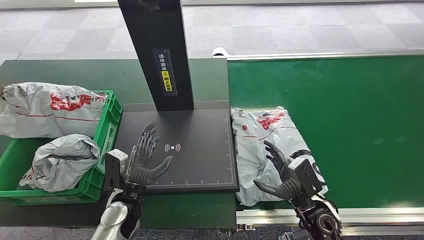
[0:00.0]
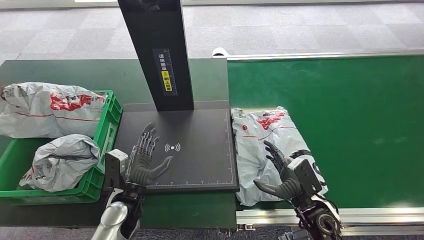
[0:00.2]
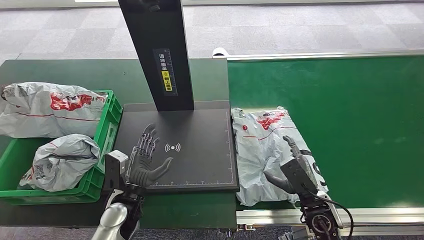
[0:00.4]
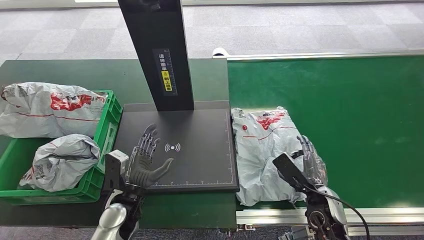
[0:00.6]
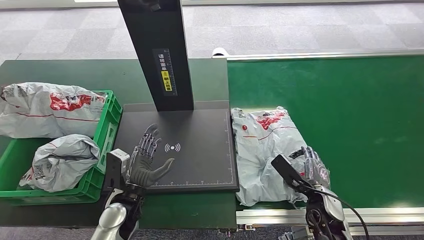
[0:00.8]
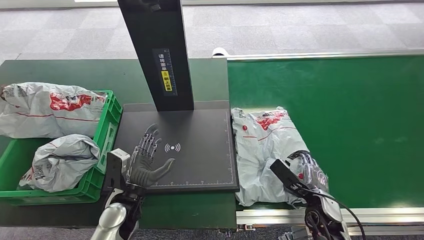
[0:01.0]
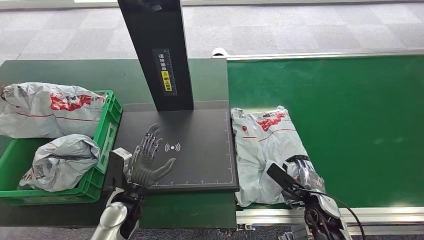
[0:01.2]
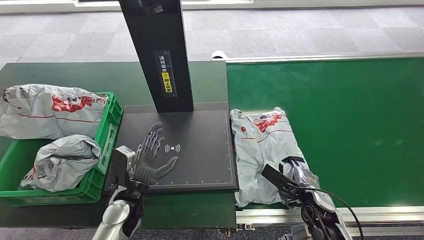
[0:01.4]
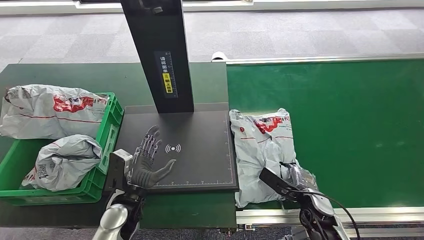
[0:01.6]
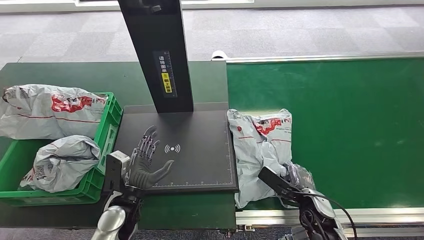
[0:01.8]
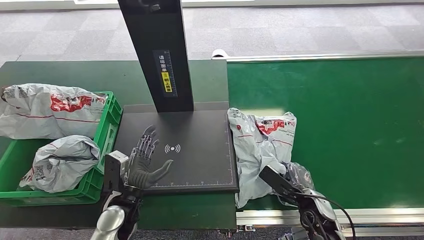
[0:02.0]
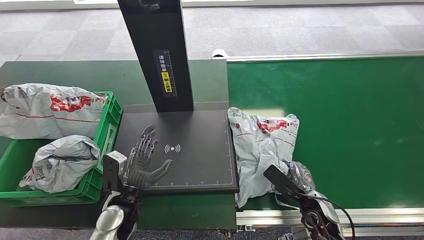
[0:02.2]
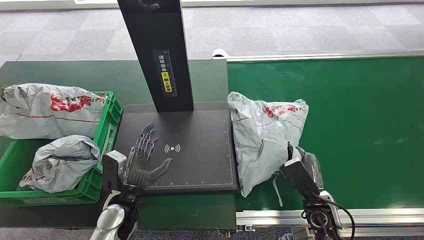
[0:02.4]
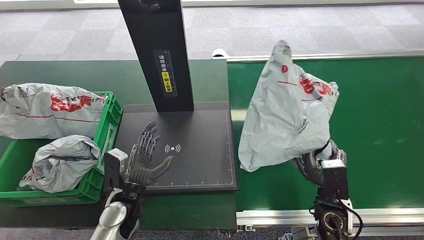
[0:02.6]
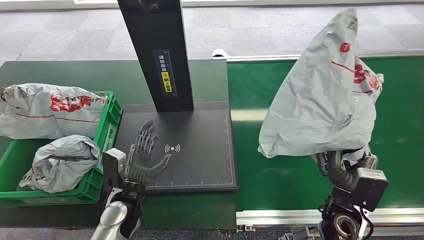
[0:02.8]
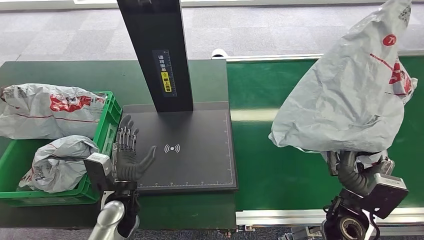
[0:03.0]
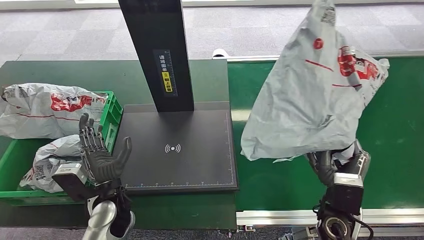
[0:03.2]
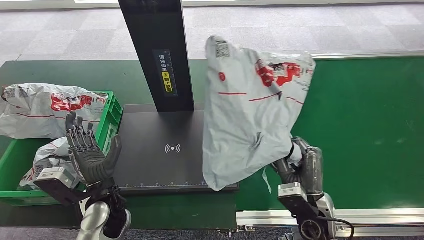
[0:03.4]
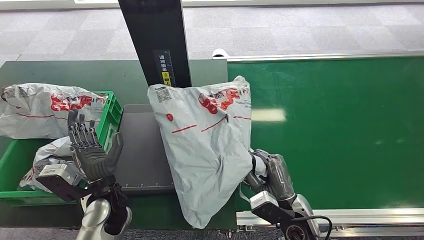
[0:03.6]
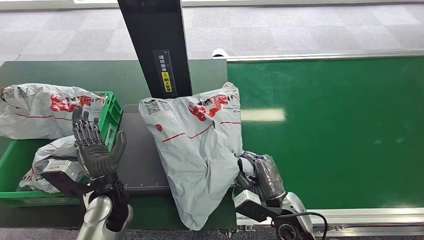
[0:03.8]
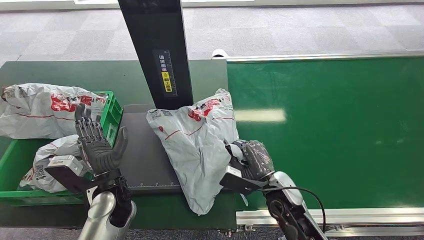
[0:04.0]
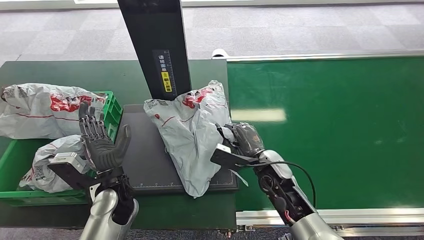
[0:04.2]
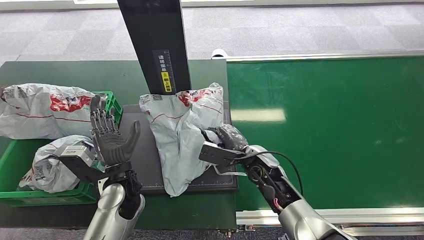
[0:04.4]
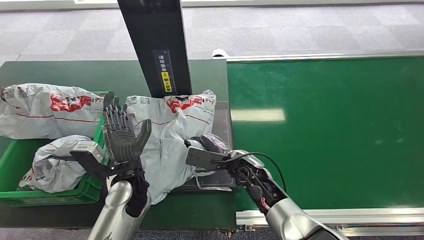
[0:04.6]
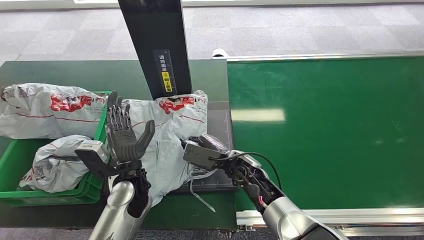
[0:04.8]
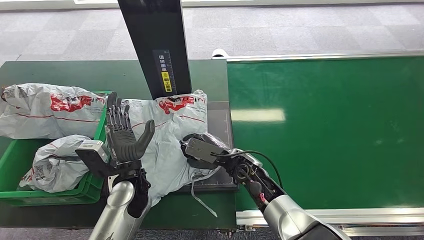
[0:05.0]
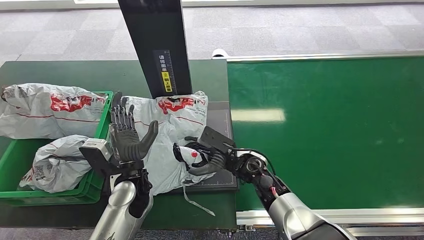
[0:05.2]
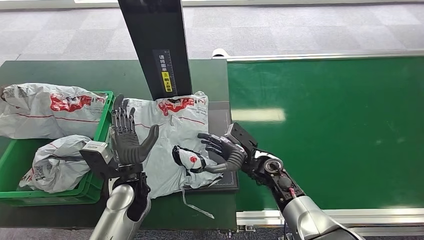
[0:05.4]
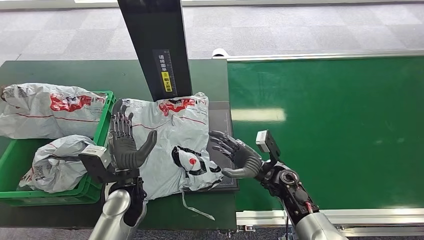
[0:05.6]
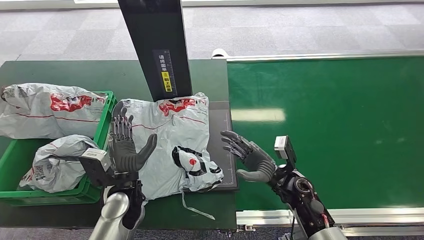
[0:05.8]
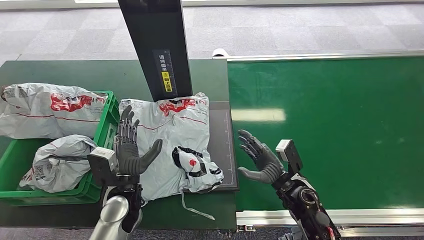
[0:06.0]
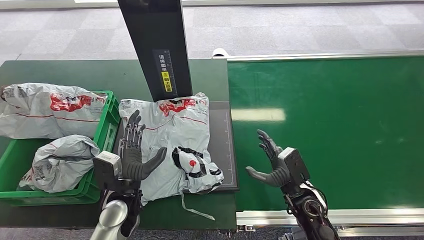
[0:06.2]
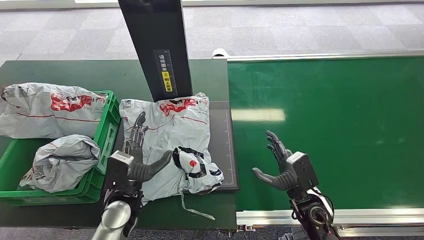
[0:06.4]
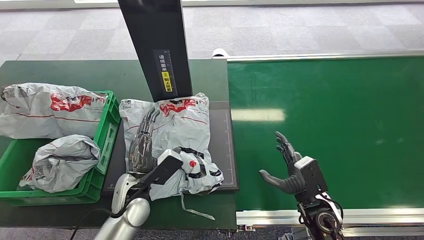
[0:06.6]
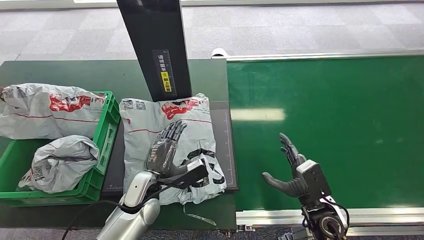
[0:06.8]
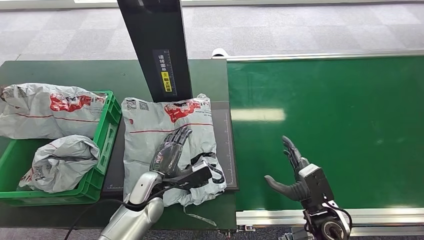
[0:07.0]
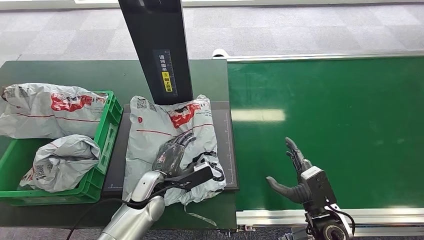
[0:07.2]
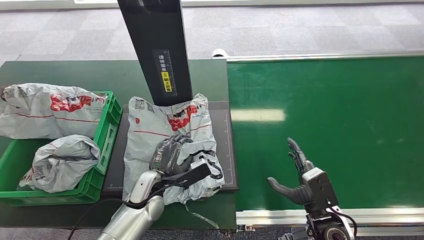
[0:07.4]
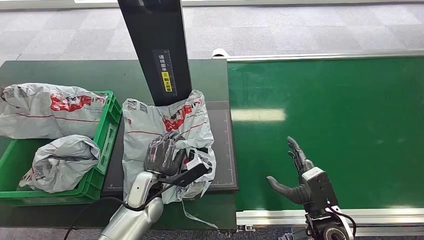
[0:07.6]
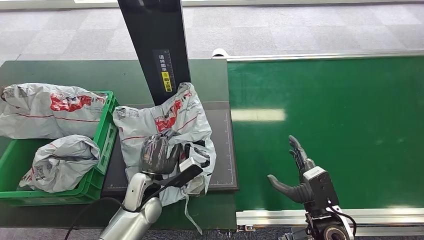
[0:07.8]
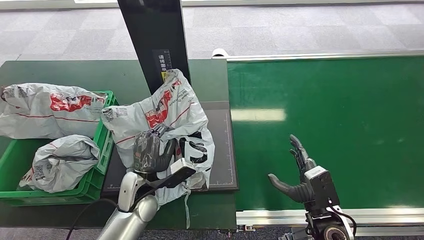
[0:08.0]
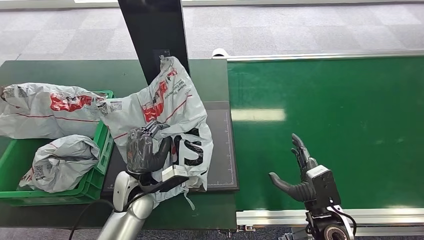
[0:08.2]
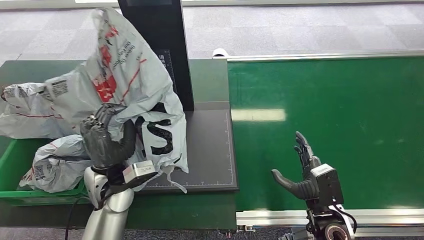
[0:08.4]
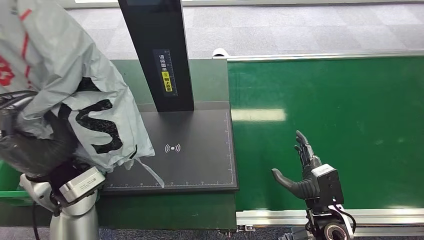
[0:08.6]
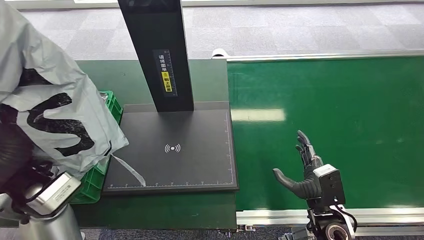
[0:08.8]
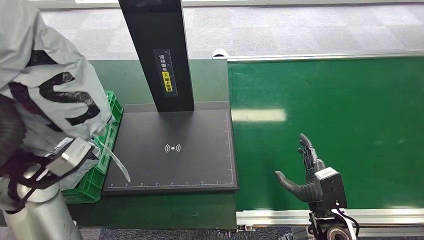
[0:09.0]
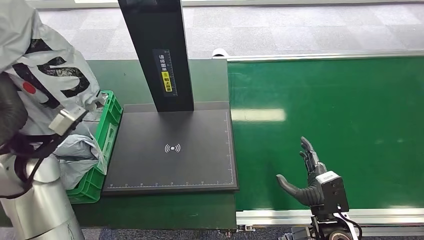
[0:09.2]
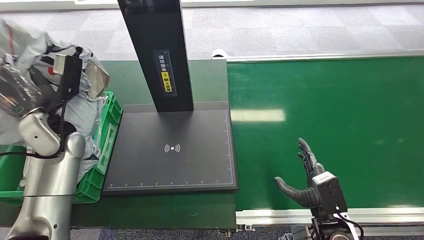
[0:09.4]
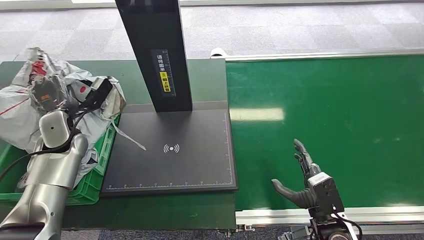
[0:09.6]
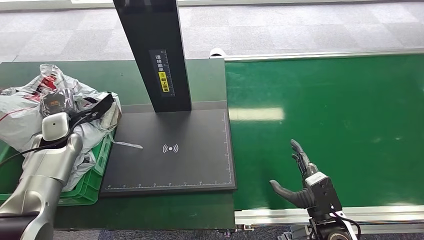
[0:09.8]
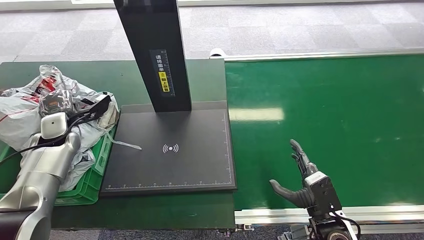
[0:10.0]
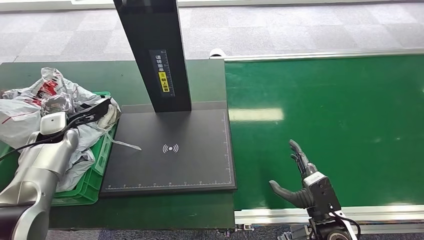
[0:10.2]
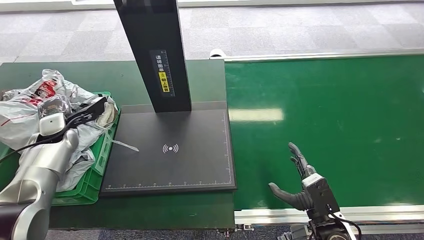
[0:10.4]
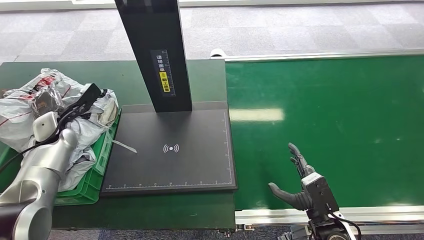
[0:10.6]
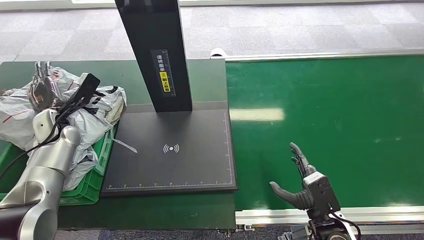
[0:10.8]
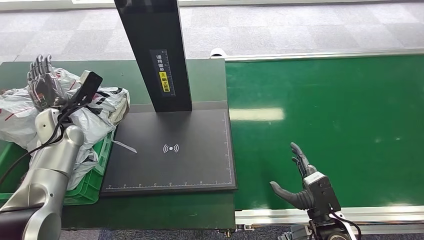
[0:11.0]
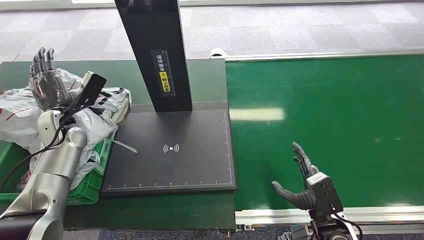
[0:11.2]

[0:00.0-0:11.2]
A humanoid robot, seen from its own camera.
Step, 0:00.0 to 0:02.8: Pick up the package from the conveyor belt.
Step, 0:03.0 to 0:05.8: Place the package onto the inbound machine.
Step, 0:06.0 to 0:08.4: Pick up the package from the inbound machine.
Step, 0:08.8 to 0:11.2: Place the package into the parcel locker.
0:04.8 to 0:06.4: The left hand moves about 5 cm; the right hand moves to the right and backward, roughly 20 cm.

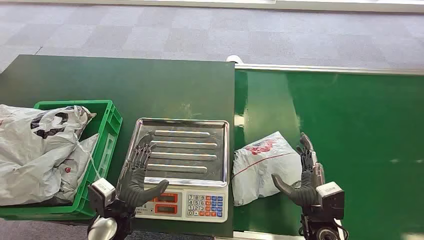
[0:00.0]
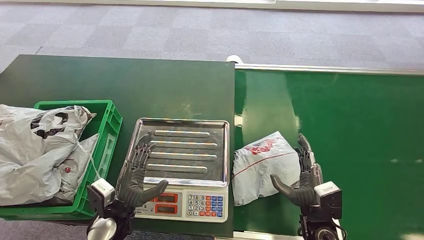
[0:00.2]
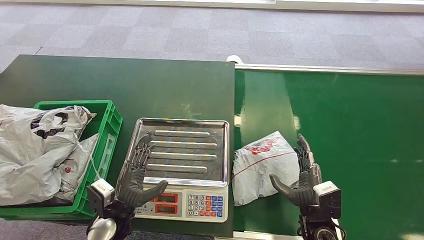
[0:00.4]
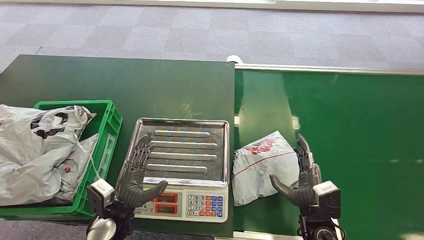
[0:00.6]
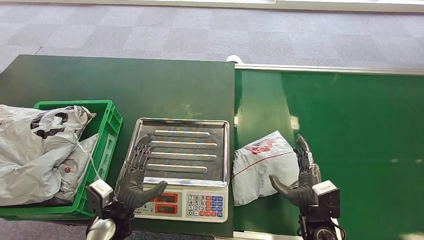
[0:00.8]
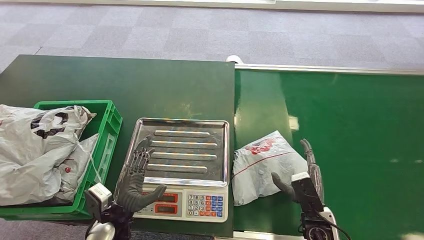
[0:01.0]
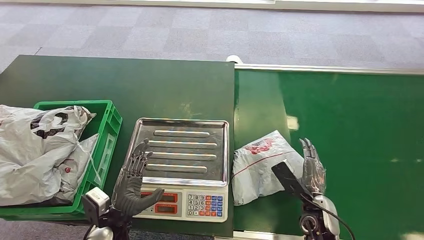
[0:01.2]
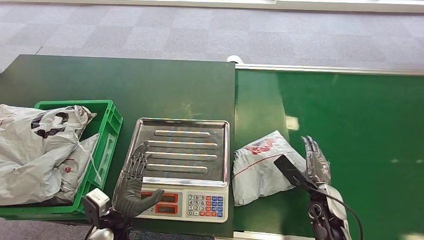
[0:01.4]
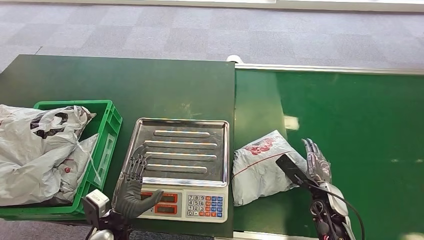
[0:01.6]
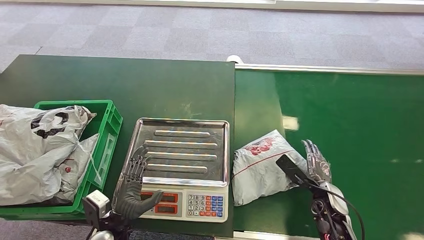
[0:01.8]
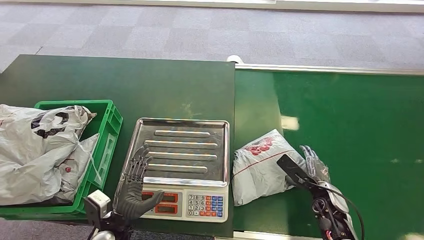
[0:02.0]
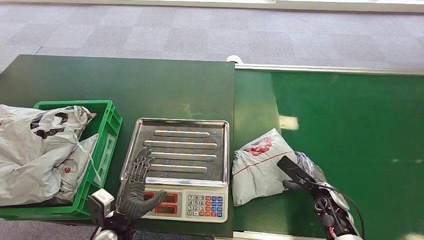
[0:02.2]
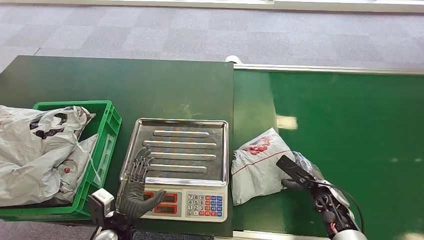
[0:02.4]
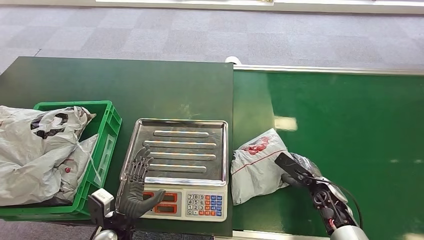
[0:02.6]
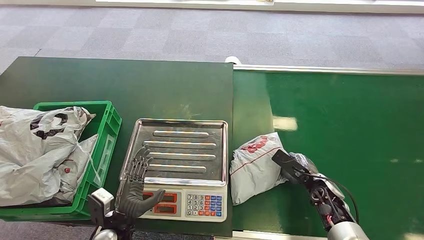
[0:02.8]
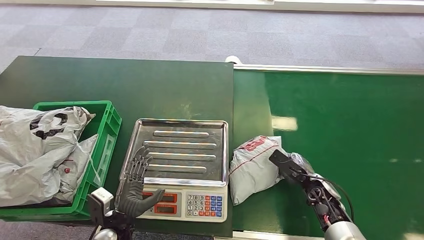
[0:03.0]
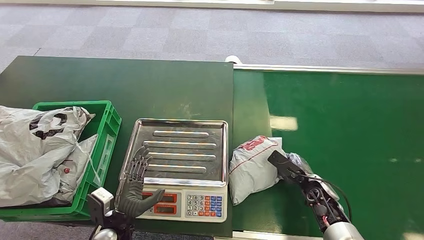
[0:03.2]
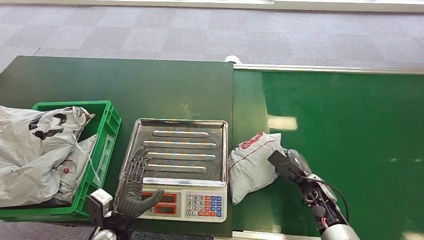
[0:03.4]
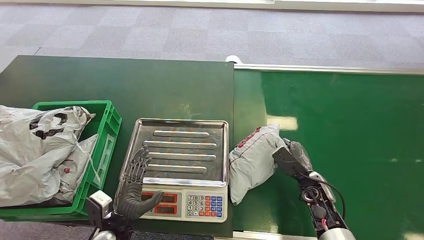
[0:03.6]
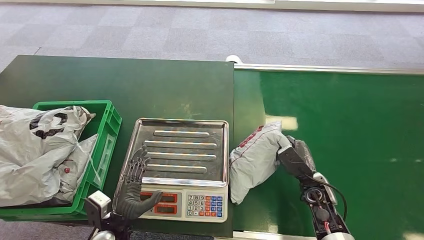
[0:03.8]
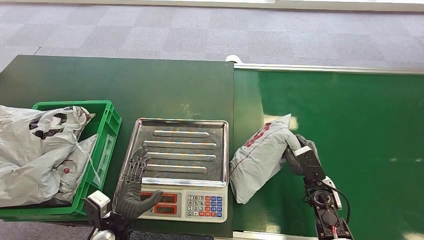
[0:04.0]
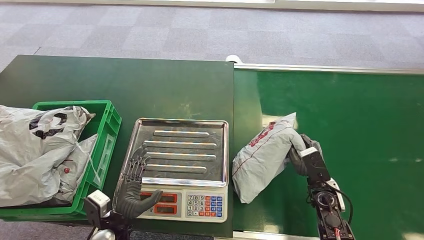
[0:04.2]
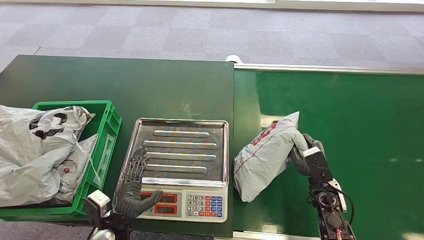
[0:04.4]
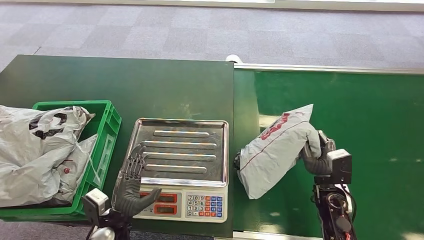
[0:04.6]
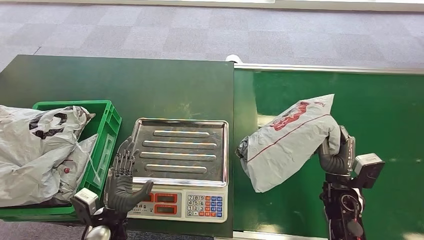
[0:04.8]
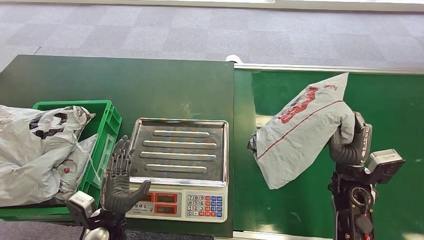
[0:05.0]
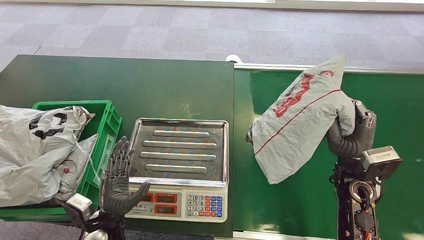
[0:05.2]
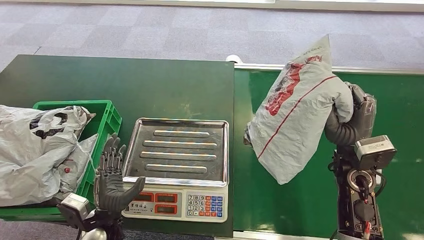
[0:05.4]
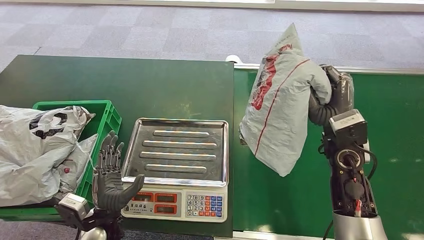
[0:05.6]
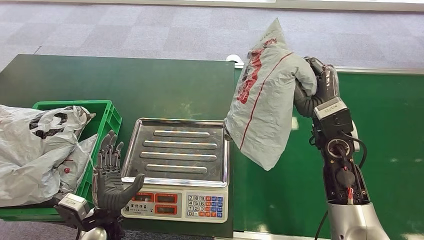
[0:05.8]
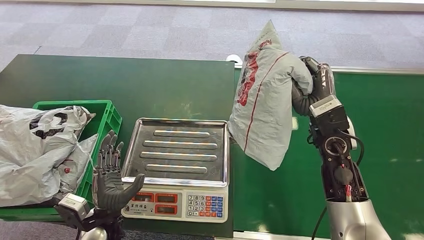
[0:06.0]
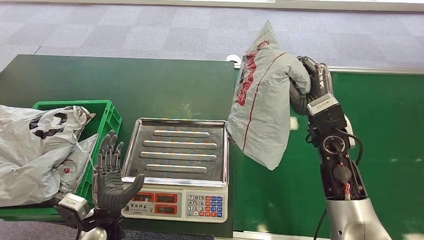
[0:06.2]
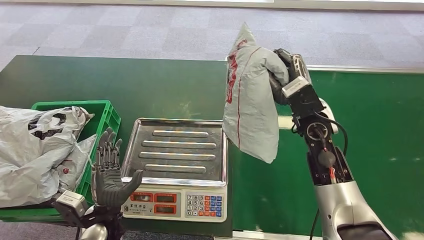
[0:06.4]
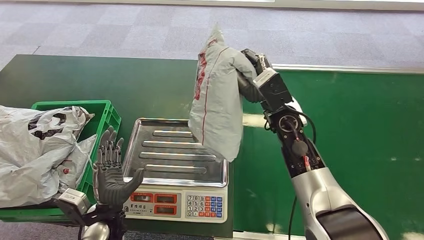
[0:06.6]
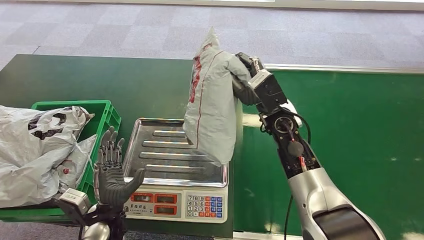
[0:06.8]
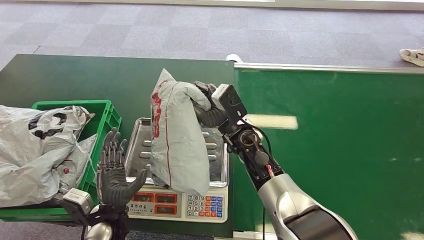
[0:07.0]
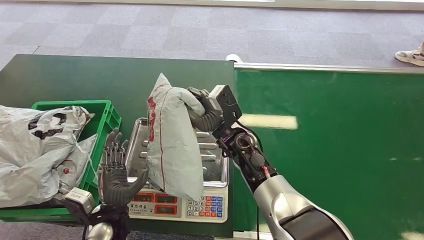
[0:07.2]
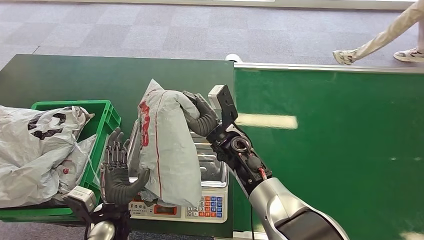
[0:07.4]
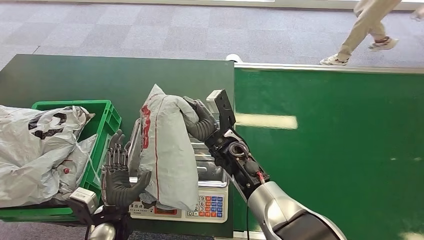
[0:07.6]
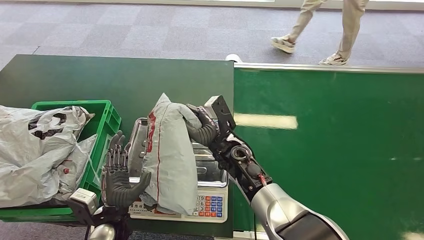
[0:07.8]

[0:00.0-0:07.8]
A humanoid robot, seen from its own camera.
Step, 0:00.0 to 0:05.0: Pick up the package from the conveyor belt.
0:04.6 to 0:06.2: The right hand travels upward and forward by some 20 cm.
